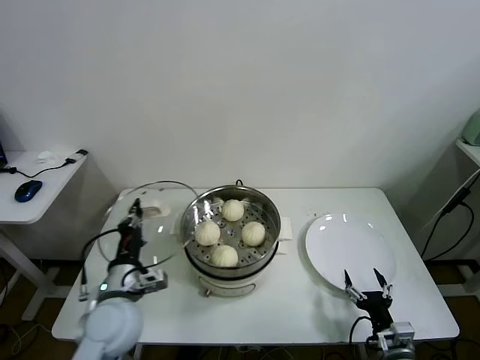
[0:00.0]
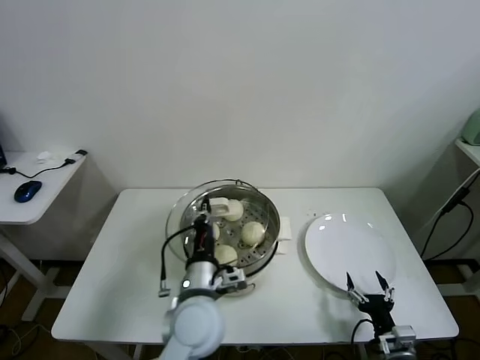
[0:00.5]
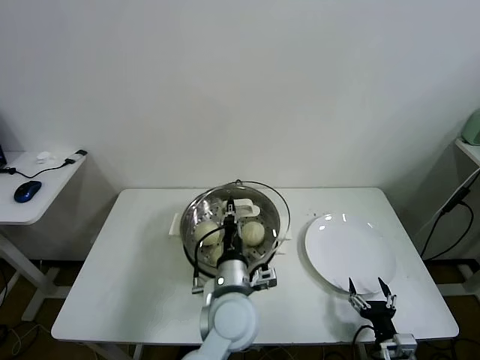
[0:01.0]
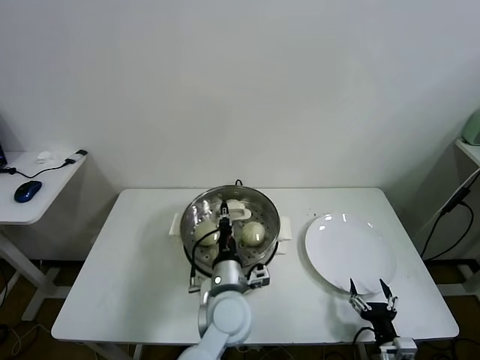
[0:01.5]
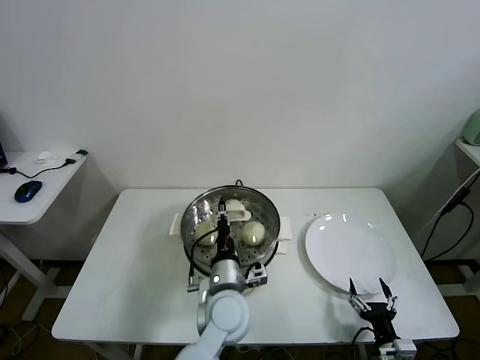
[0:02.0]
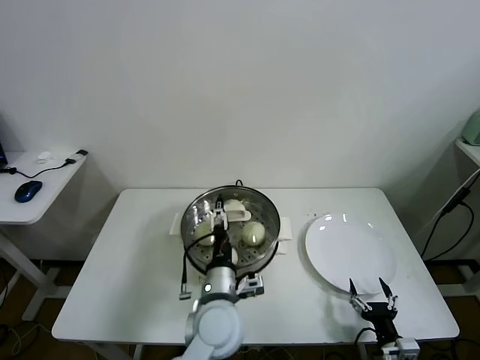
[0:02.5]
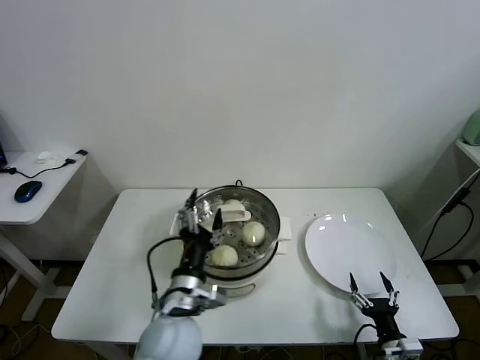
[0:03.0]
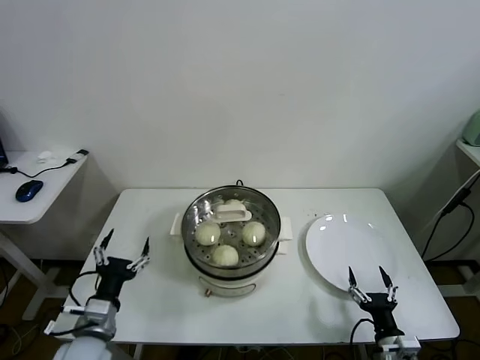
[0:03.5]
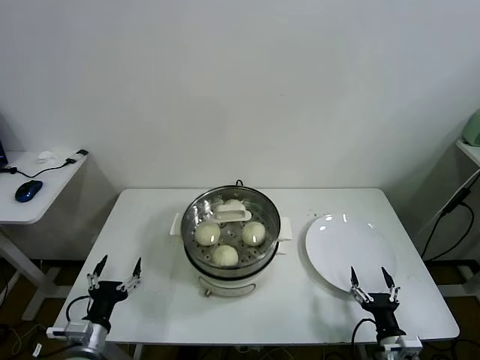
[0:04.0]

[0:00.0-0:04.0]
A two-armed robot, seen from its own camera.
Task of the whole recording: take steamed baozi put them in steamer.
Step, 0.0 to 2.0 s: Place the pot lid on the steamer with left gripper.
0.0 to 2.0 s: The left gripper travels to the right by approximately 25 cm.
2.0 to 4.0 s: The left gripper is displaced to the left by some 30 cm, and opens up.

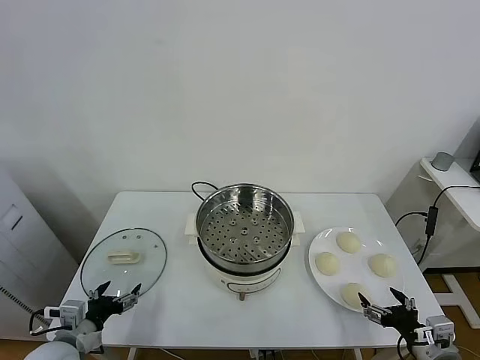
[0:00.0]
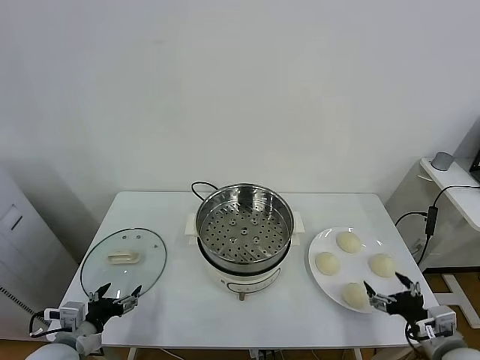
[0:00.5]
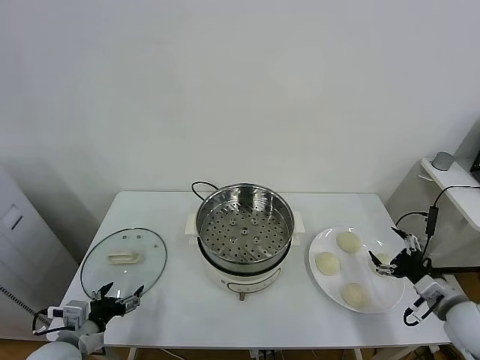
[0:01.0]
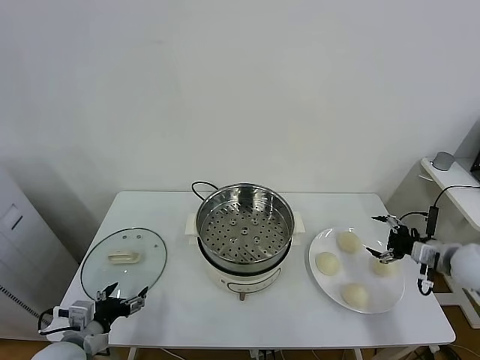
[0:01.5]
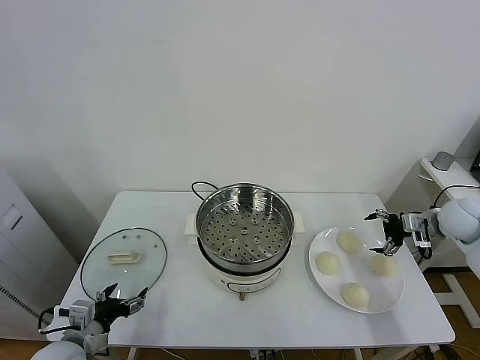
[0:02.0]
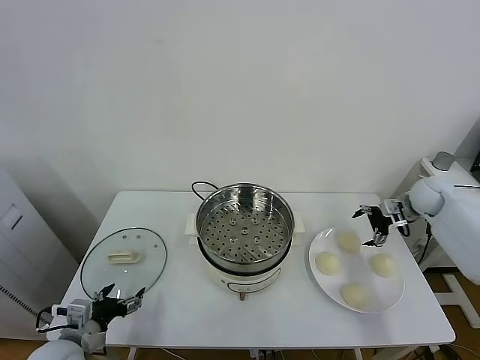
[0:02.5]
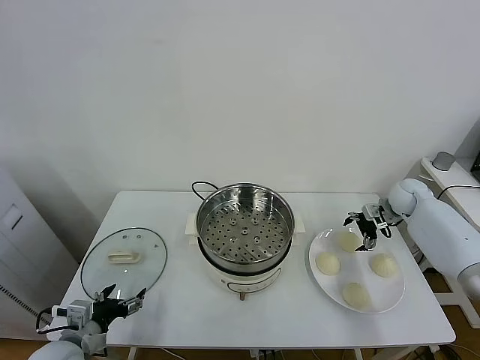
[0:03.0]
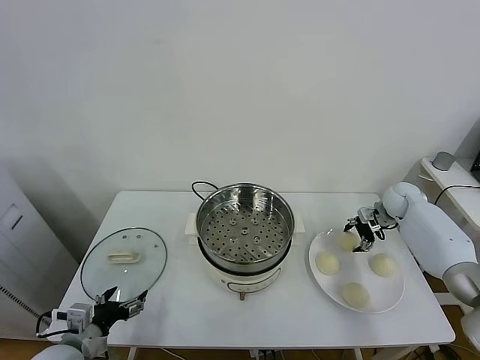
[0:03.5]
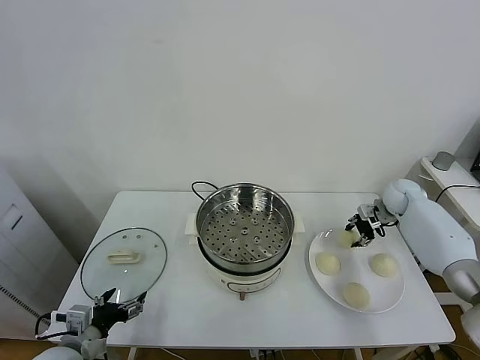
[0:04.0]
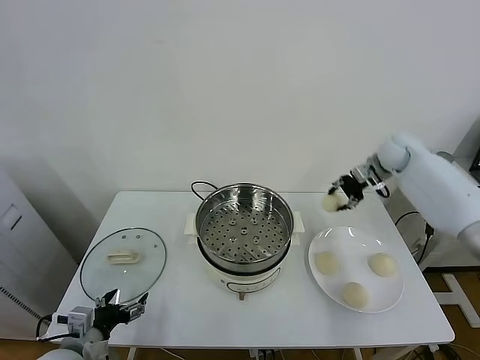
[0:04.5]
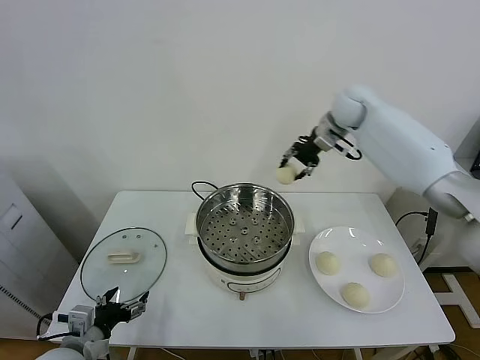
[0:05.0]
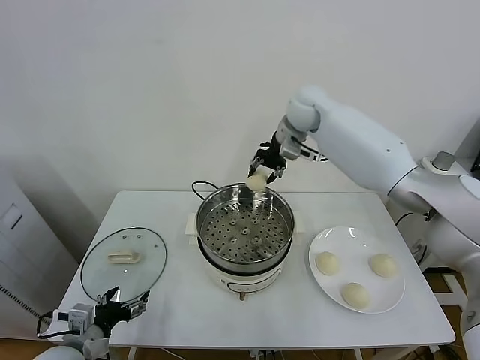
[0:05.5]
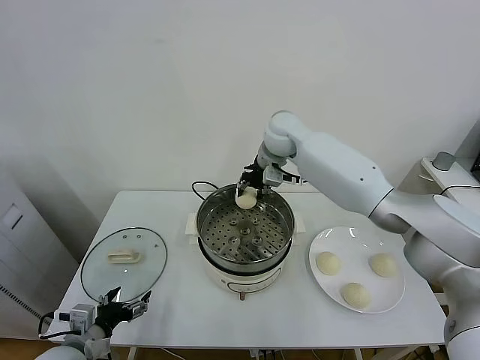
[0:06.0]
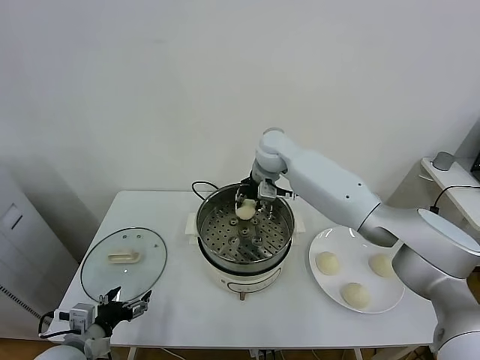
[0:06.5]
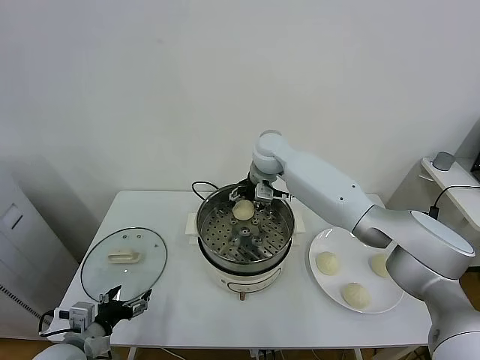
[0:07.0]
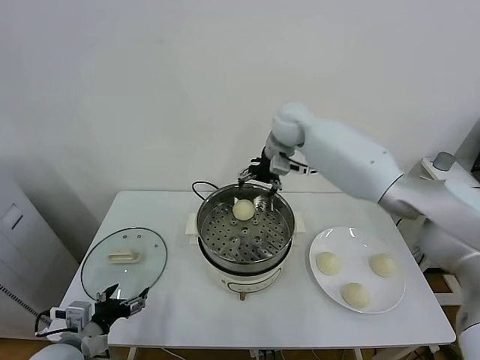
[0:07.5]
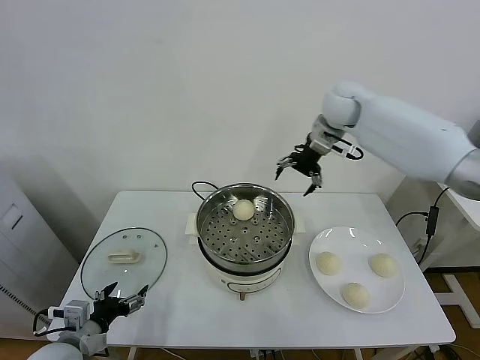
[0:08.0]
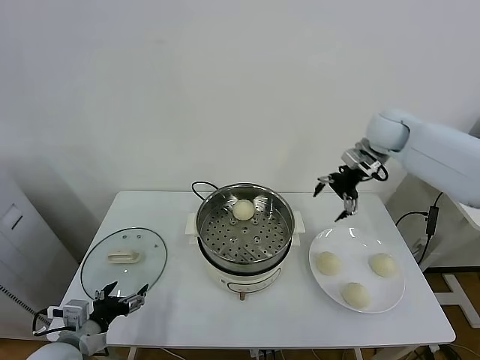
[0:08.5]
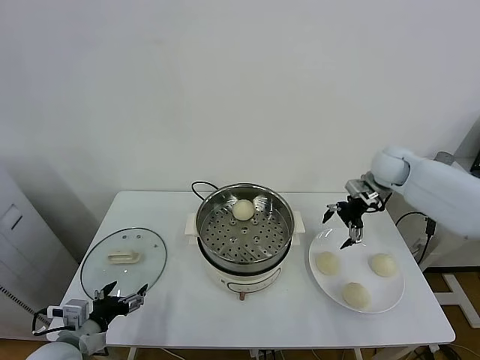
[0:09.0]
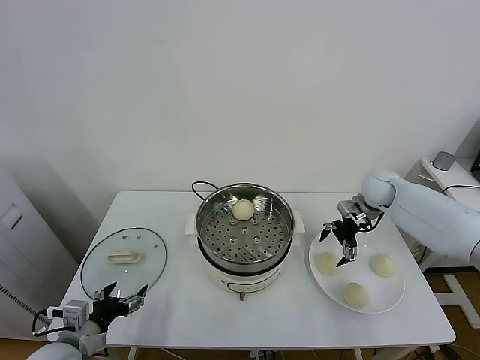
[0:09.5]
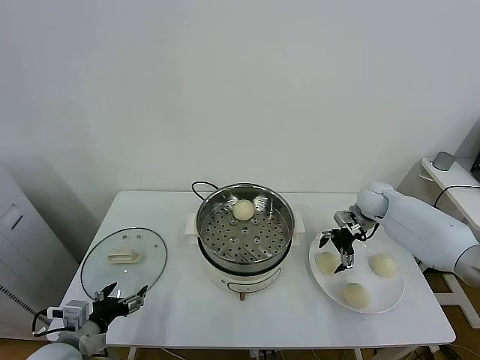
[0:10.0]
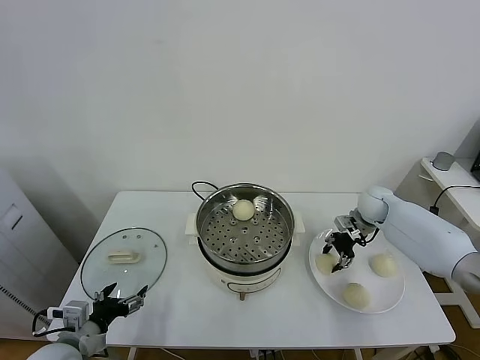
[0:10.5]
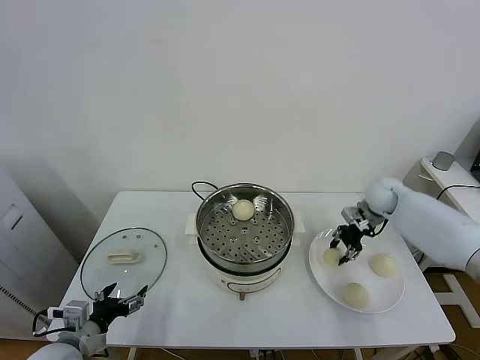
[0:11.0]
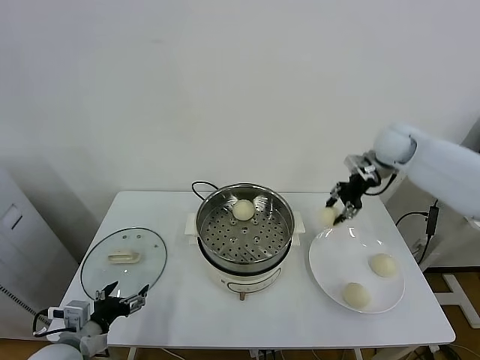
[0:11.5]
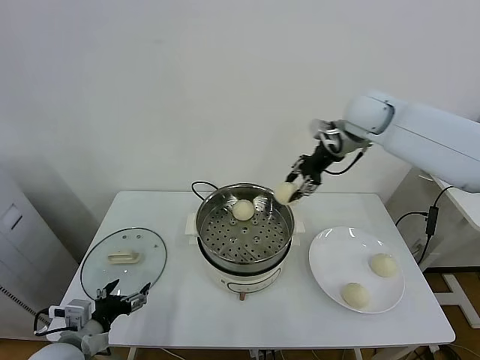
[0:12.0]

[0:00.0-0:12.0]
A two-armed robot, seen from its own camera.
Task of the whole recording: take steamed baozi put them in steamer.
Step, 0.0 to 3.5 s: Grasp the baozi in the plate with right gripper.
Step, 4.0 to 7.0 s: Place the baozi on the steamer with right gripper.
Step, 7.5 to 10.5 s: Grasp the baozi in the plate with right gripper.
2.0 to 4.0 s: The right gripper goes about 10 cm forward and to the left, and closes.
4.0 to 6.0 s: The right gripper goes about 40 cm to the left and upward.
6.0 to 8.0 s: The right gripper goes some 20 cm to the right and upward, and opens up.
8.0 to 10.0 s: The right gripper heads downward and to the right, covering some 30 cm.
10.0 to 12.0 s: The right gripper is displaced upward and to the left by about 30 cm, and closes.

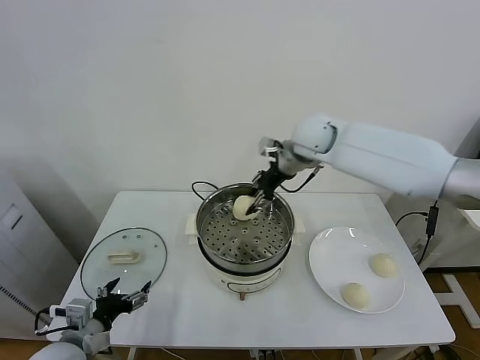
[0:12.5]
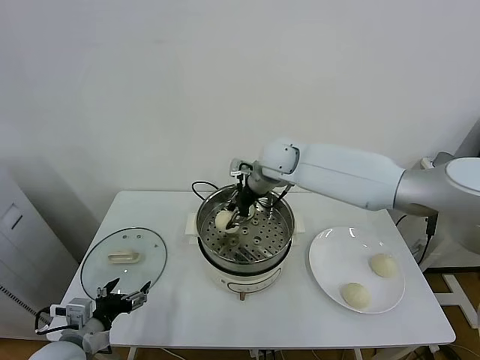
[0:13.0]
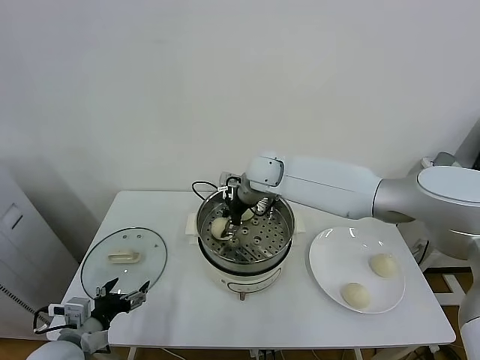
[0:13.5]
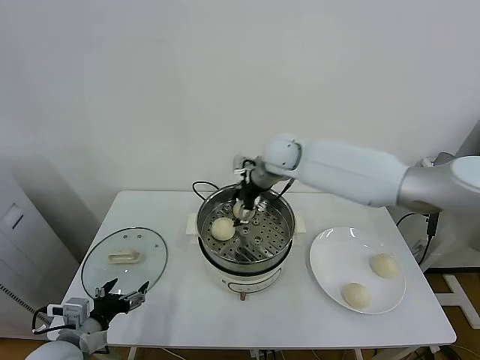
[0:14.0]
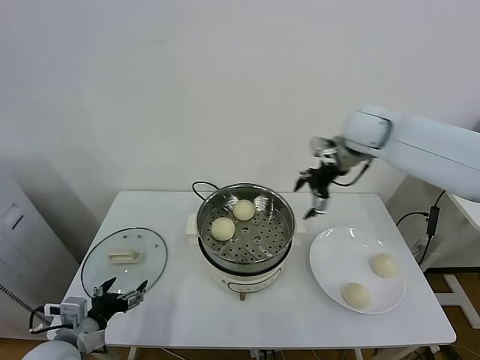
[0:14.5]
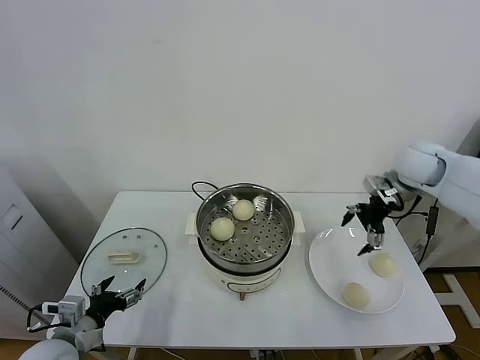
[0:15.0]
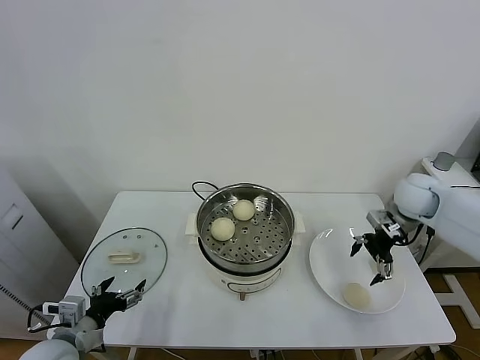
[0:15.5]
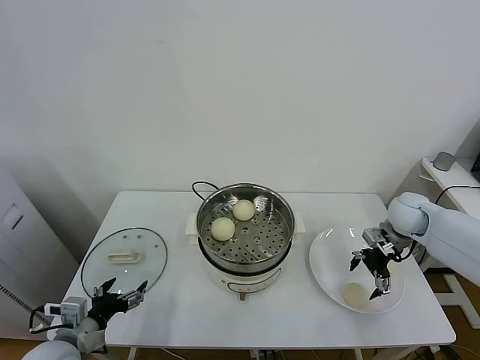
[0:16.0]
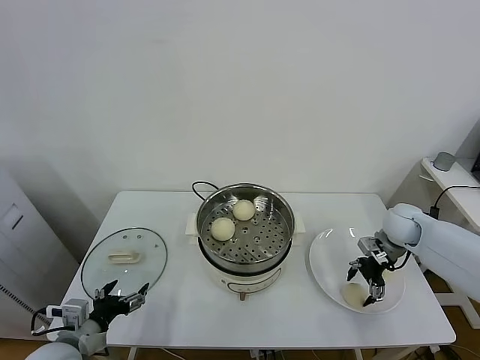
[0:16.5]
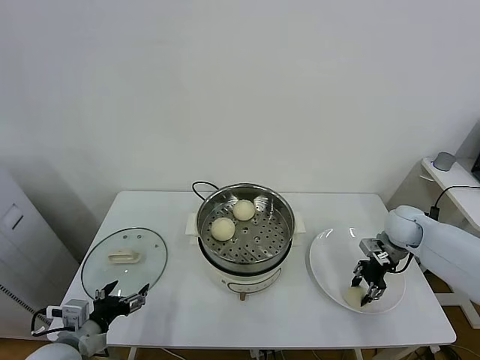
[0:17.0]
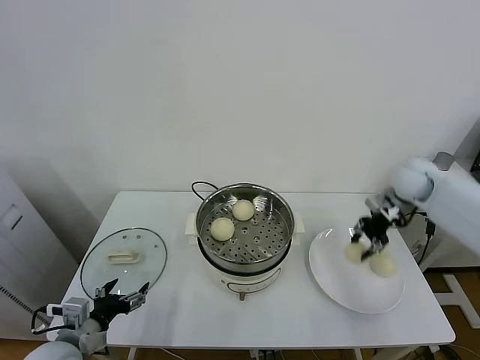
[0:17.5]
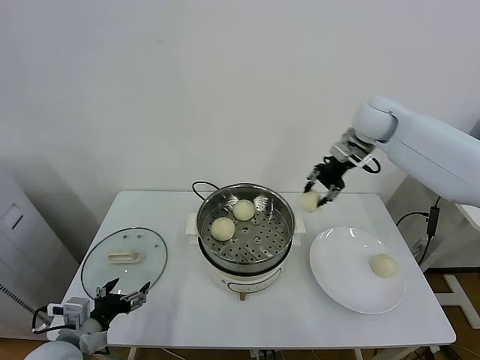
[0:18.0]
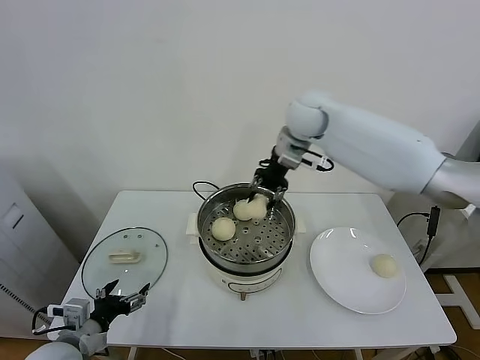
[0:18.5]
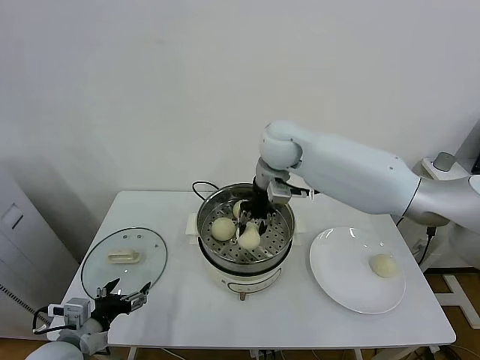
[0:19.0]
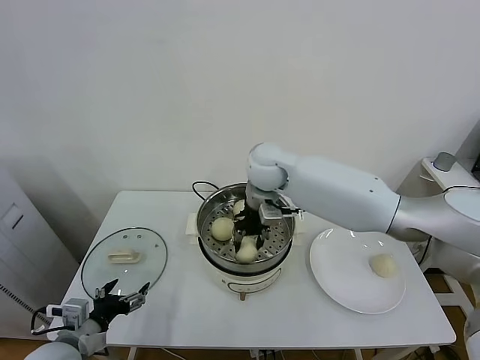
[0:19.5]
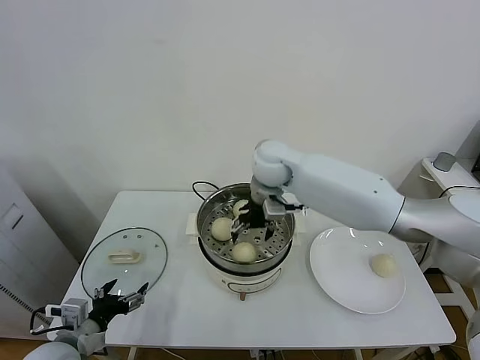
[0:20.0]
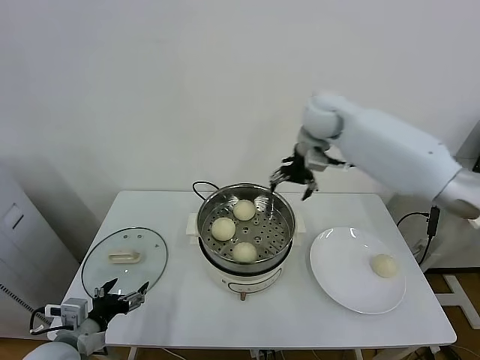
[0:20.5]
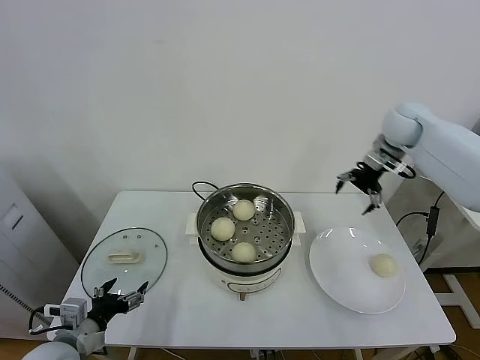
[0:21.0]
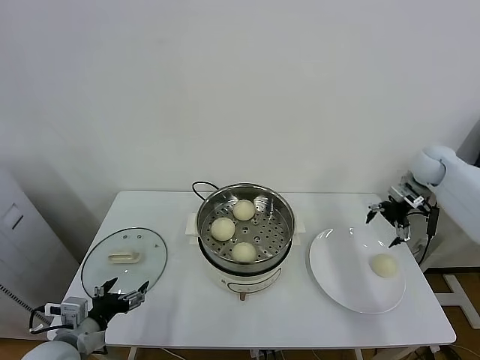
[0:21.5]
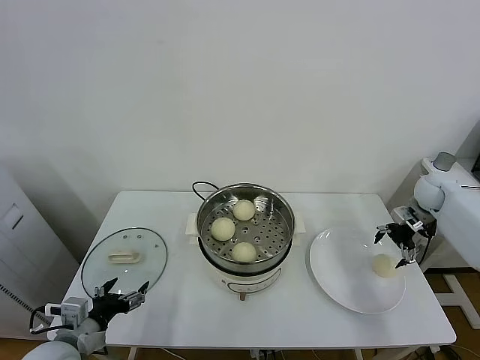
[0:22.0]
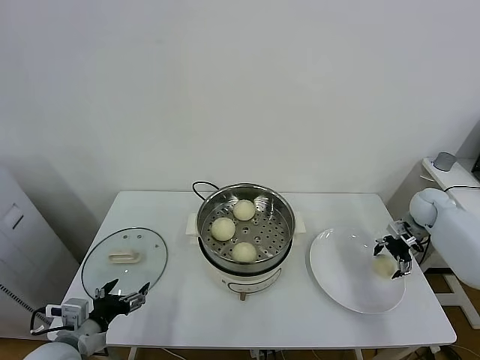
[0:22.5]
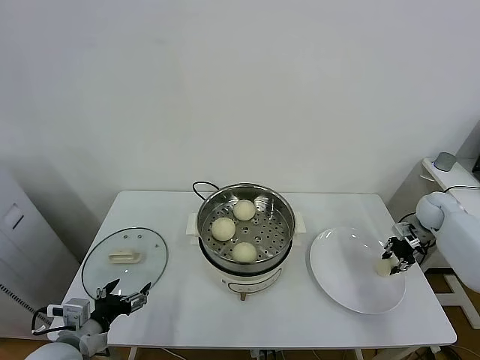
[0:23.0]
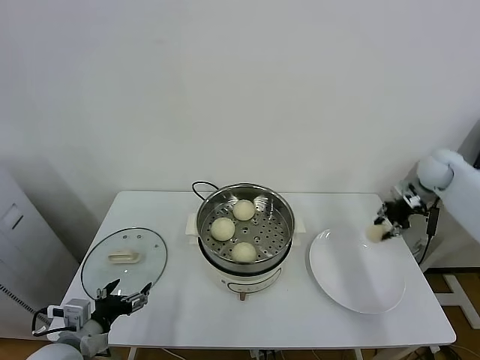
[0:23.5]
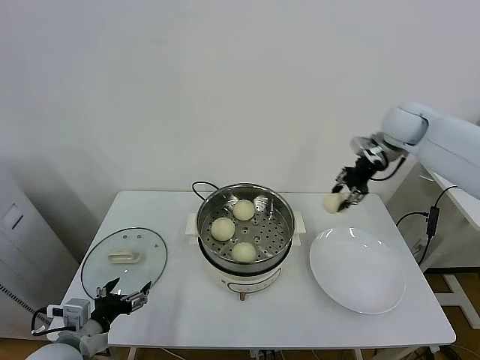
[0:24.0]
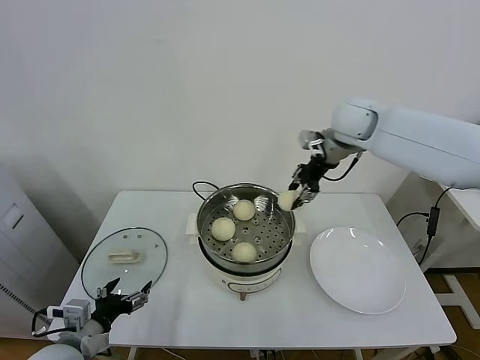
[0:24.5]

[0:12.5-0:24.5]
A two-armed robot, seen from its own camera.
Task of the whole recording: take steamed baozi put them in steamer.
Step, 14.5 to 17.0 s: Grasp the baozi in the plate with right gripper.
Step, 17.5 to 20.0 s: Place the baozi on the steamer with right gripper.
Step, 20.5 to 22.5 s: Grasp the baozi in the plate with right gripper.
12.5 to 14.5 s: The right gripper shifts roughly 15 cm to the right, and opens its fingers.
14.5 to 16.5 s: The right gripper is displaced downward and to the right by some 25 cm.
16.5 to 18.5 s: The right gripper is displaced to the left and upward by about 35 cm, and closes up.
18.5 to 20.5 s: The right gripper is displaced to the right by about 5 cm, and opens.
20.5 to 22.5 s: The right gripper is displaced to the right and downward by some 40 cm.
22.5 to 24.5 s: The right gripper goes approximately 35 cm to the left and upward, and closes up.
